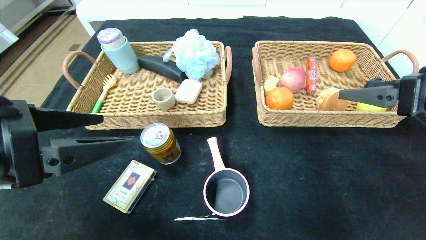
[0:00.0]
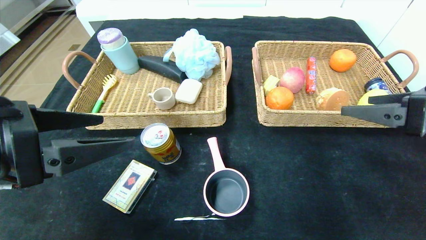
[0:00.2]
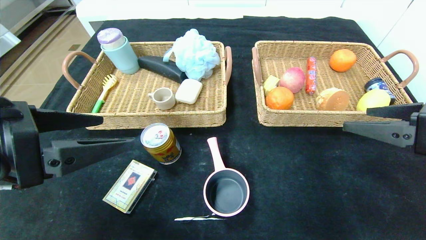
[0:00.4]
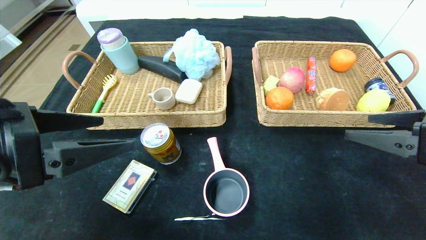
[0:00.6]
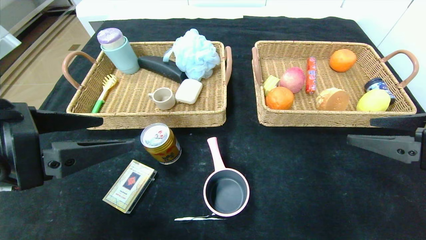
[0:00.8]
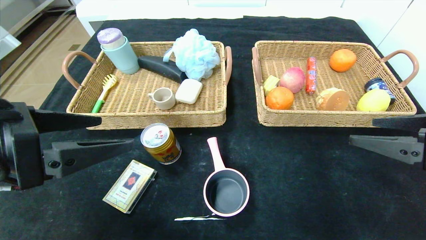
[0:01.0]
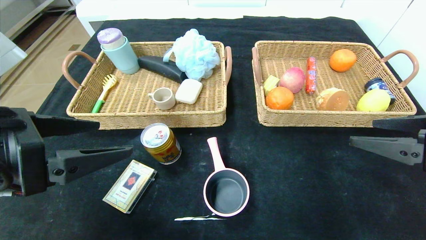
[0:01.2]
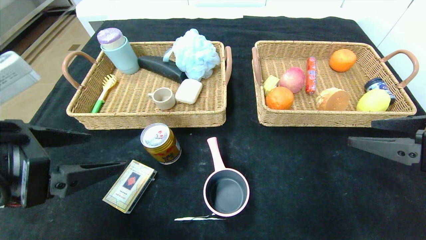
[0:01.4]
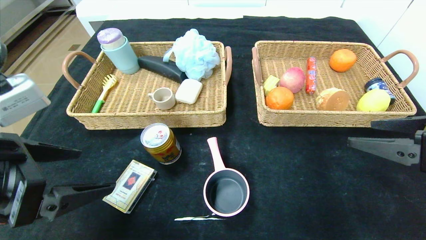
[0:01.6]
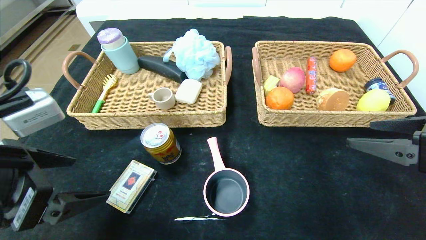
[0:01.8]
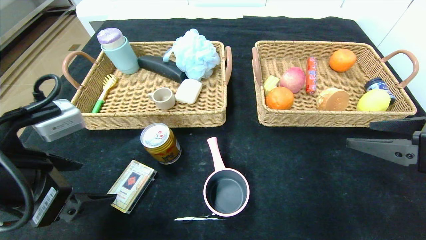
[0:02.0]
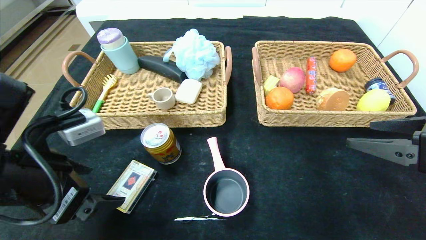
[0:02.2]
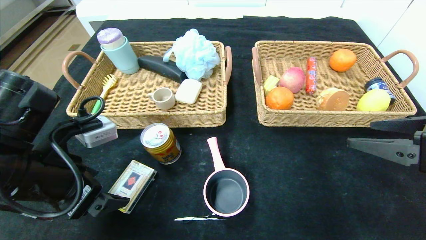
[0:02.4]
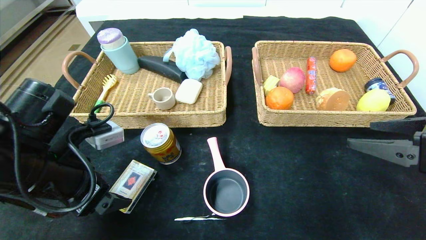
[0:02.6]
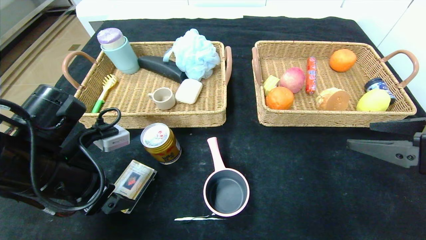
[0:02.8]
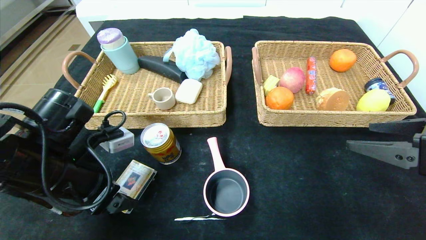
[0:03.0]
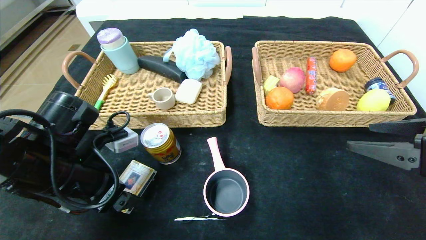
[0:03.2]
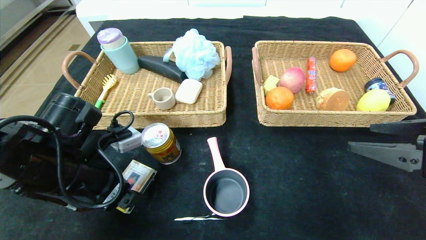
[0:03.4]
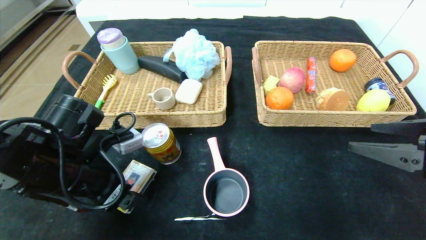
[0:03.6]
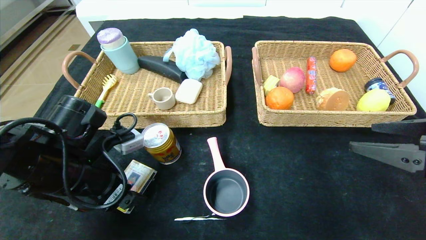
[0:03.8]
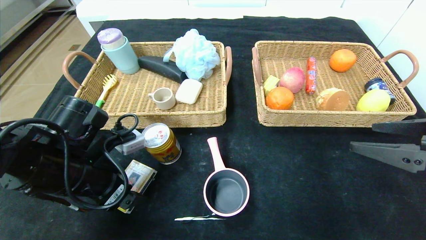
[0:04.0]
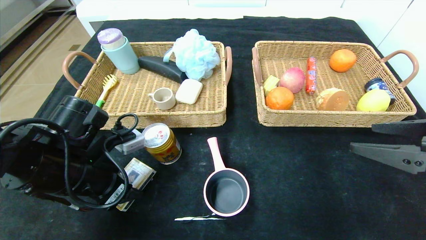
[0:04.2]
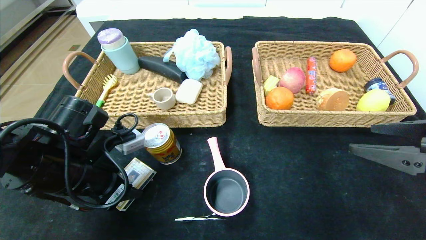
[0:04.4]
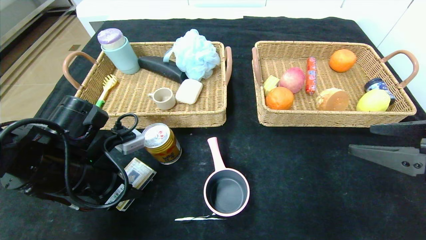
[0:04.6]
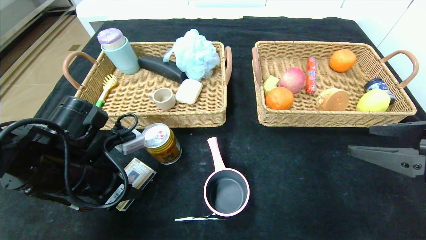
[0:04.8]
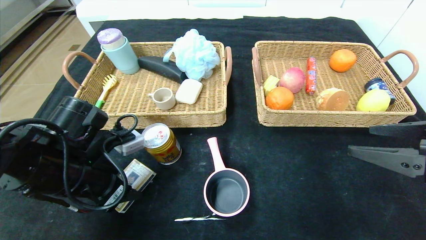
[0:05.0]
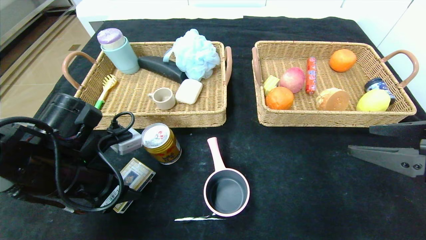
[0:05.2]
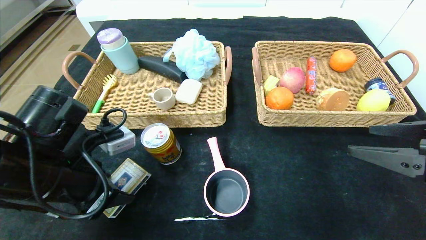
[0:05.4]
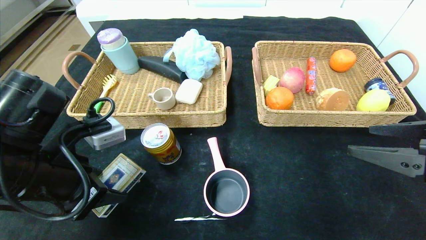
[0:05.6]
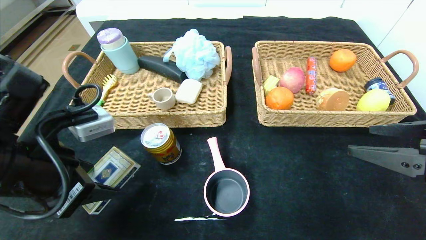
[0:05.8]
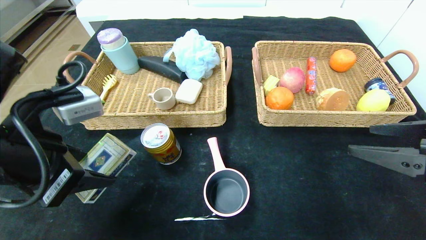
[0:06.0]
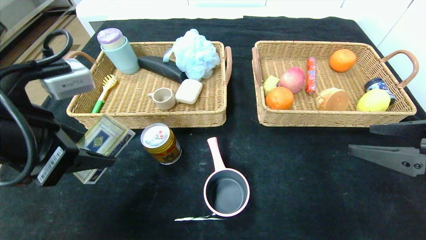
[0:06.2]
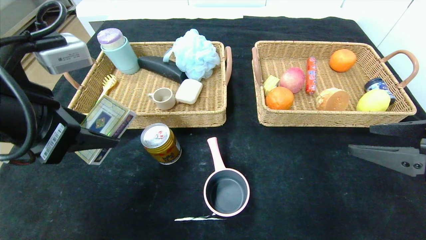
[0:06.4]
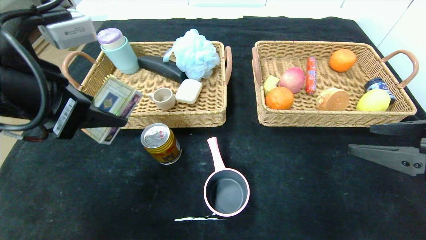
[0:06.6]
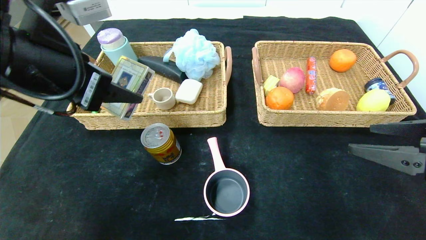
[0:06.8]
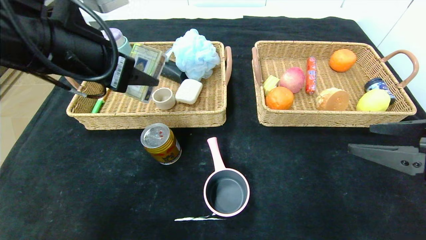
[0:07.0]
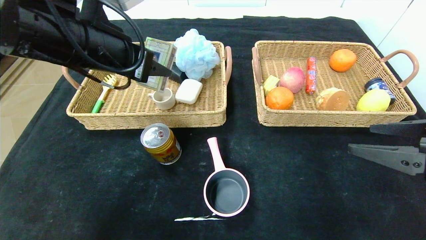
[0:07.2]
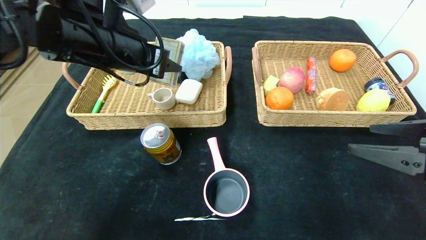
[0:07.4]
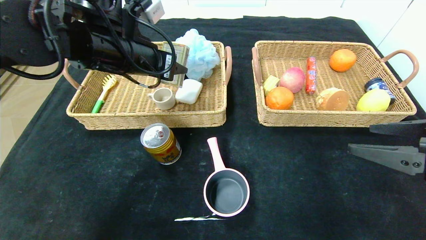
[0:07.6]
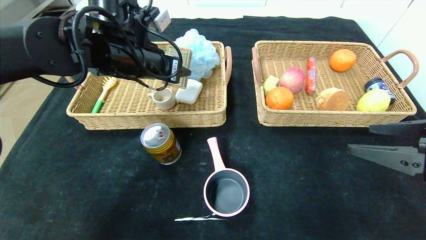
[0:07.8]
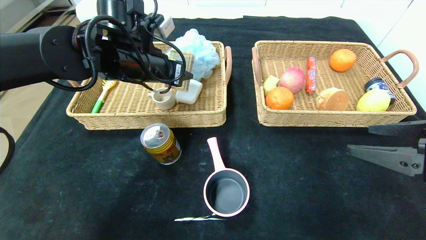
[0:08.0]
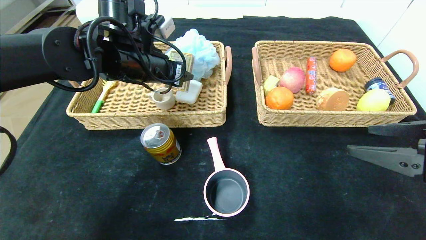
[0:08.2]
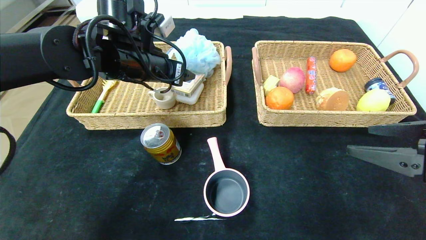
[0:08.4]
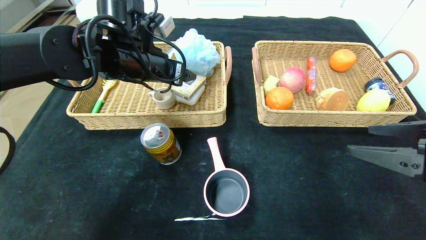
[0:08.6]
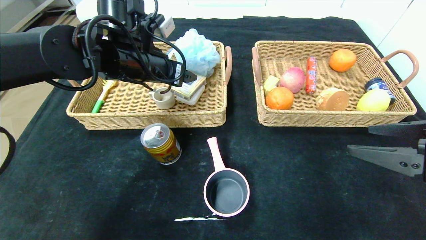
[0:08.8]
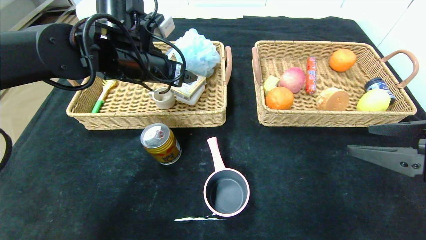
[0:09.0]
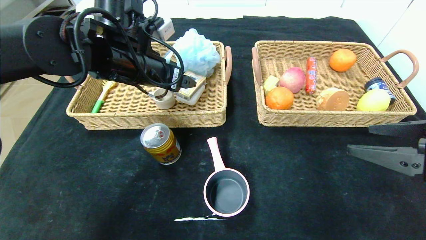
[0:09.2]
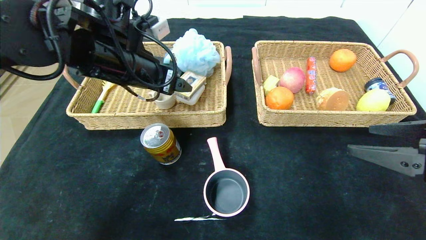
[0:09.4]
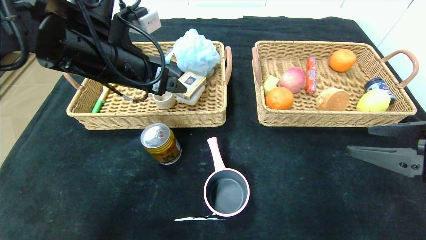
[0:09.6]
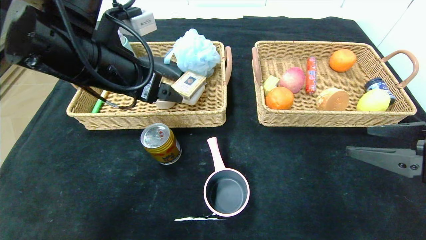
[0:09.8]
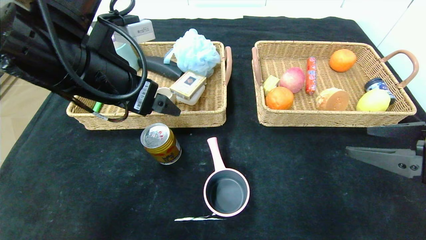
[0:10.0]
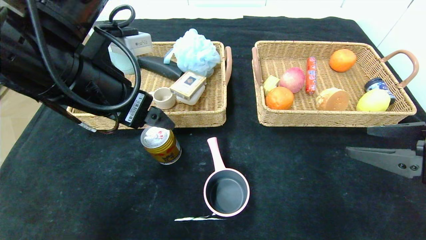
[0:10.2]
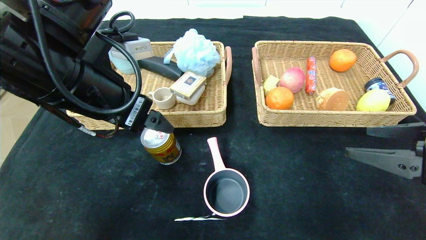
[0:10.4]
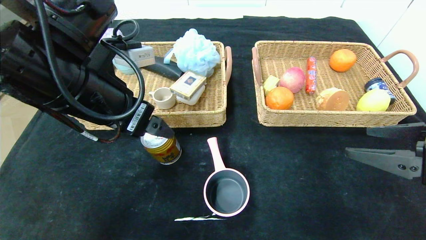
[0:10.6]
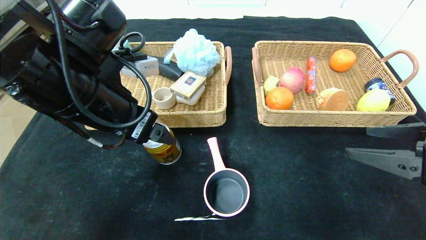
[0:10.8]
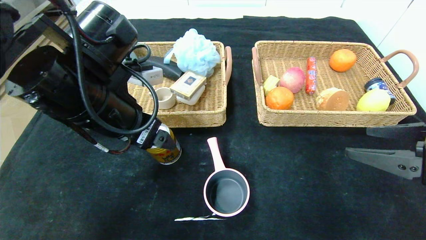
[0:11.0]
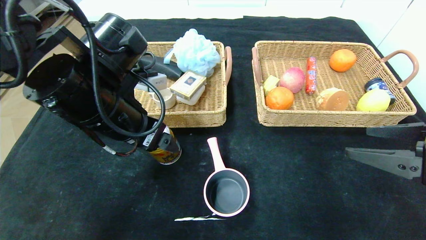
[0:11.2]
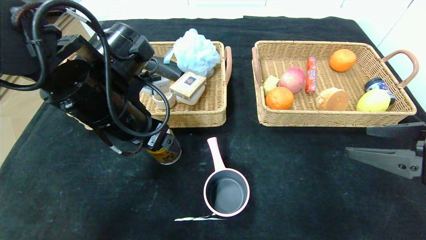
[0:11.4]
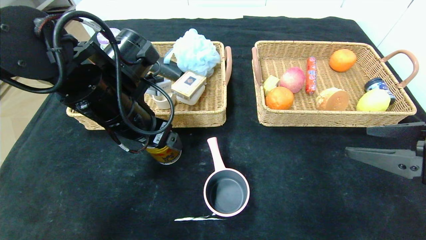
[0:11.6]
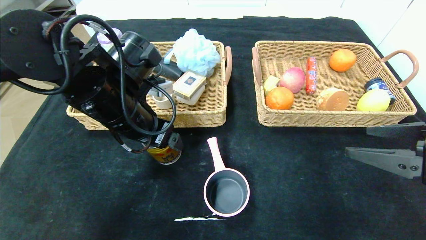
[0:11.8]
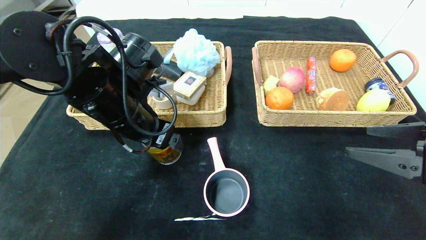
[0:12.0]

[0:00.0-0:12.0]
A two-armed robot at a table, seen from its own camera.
Step, 0:00.0 to 0:08.6: Grasp the playing cards and put it in the left basket.
0:00.0 to 0:01.6: The right gripper moves about 5 cm.
0:01.6 to 0:03.0: The left gripper heads forward and downward, covering about 10 cm.
0:03.0 to 0:04.4: The left gripper closes its fingers.
0:04.4 to 0:06.0: The left gripper shifts roughly 10 cm upward and backward.
0:06.0 to 0:07.6: The left gripper moves forward and to the right, about 20 cm.
0:07.6 to 0:09.0: The left gripper opens up.
0:09.0 to 0:10.4: The left gripper goes some 15 cm backward.
0:10.4 to 0:12.0: The left gripper moves downward and forward, about 10 cm.

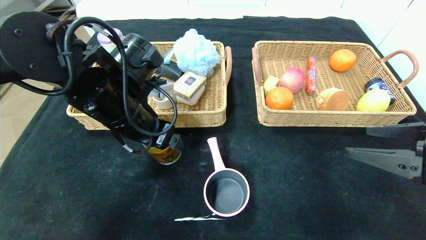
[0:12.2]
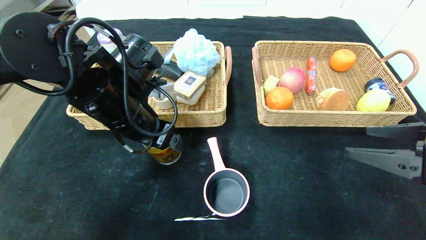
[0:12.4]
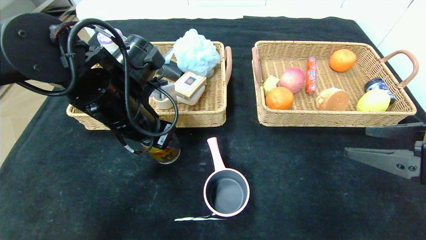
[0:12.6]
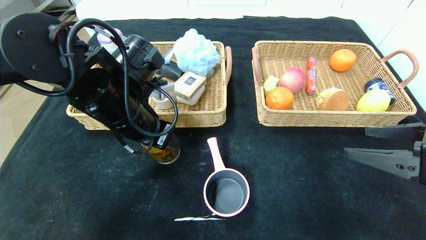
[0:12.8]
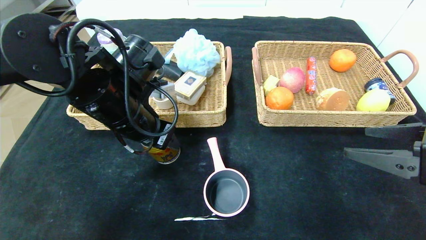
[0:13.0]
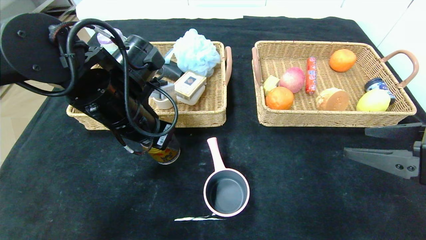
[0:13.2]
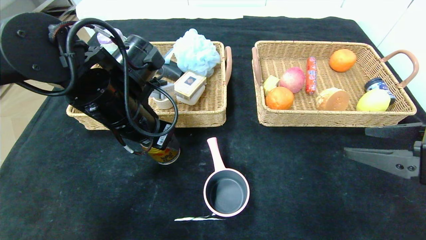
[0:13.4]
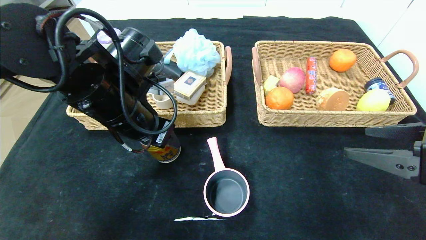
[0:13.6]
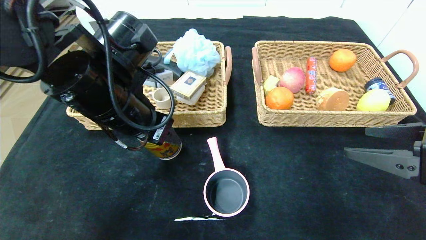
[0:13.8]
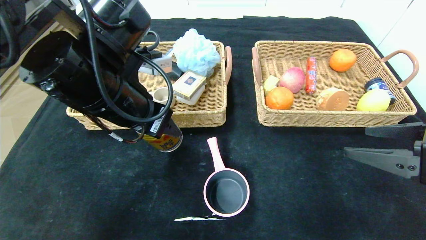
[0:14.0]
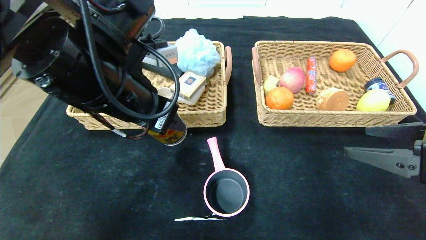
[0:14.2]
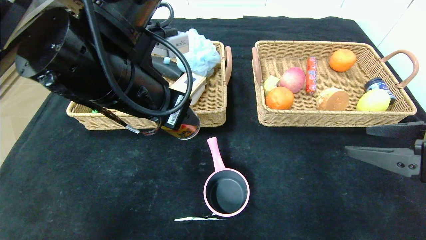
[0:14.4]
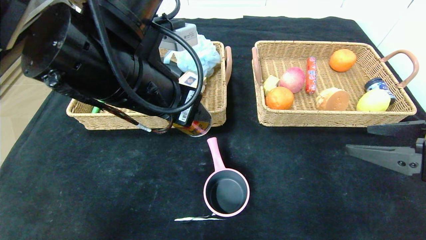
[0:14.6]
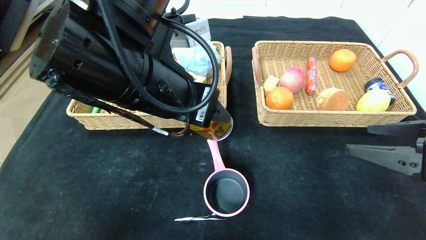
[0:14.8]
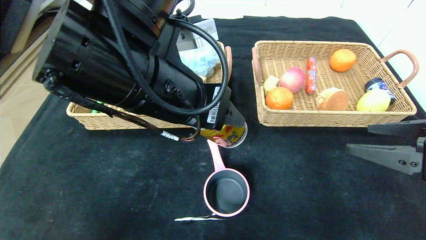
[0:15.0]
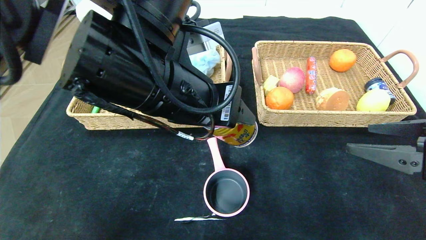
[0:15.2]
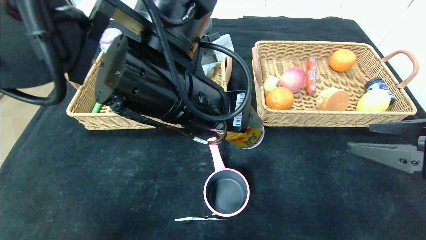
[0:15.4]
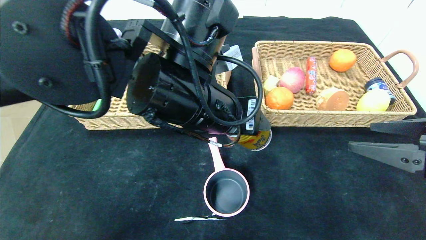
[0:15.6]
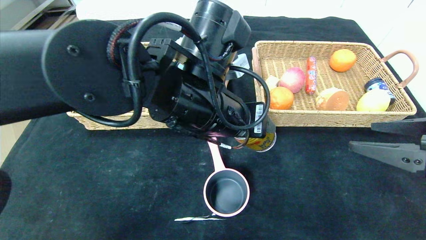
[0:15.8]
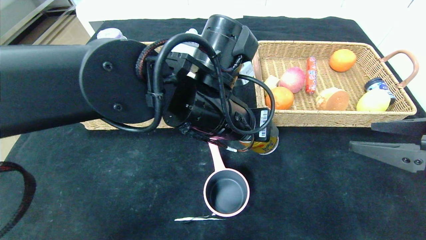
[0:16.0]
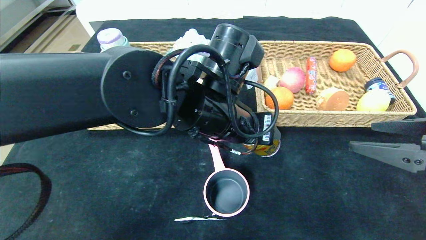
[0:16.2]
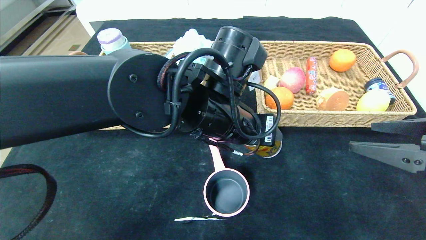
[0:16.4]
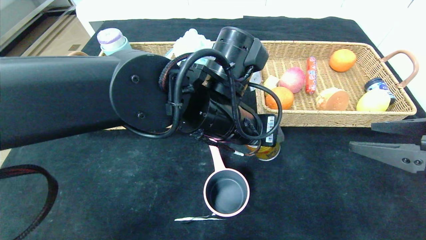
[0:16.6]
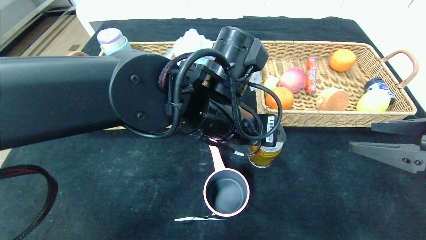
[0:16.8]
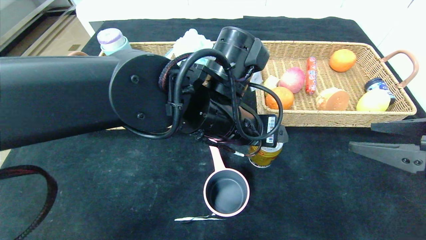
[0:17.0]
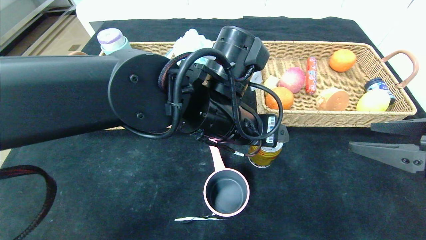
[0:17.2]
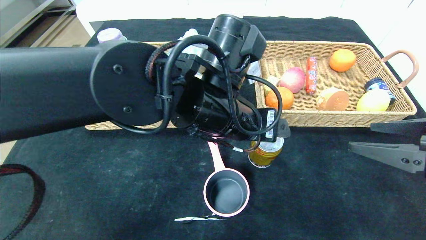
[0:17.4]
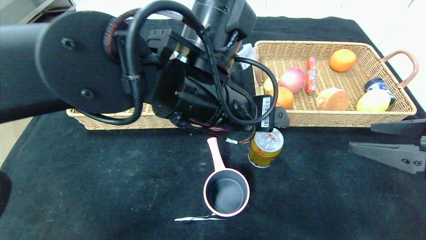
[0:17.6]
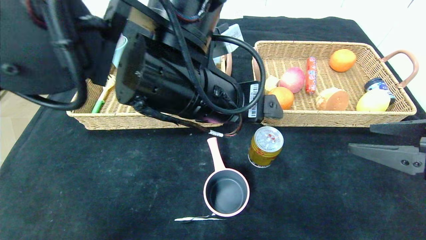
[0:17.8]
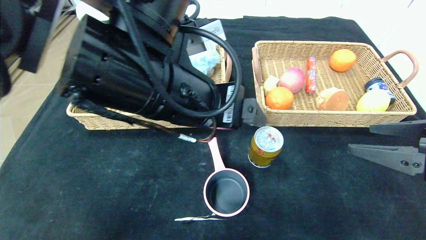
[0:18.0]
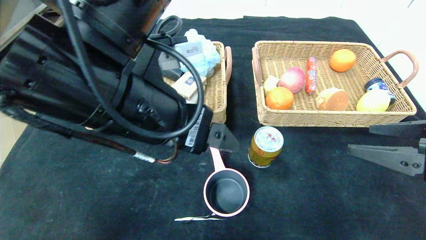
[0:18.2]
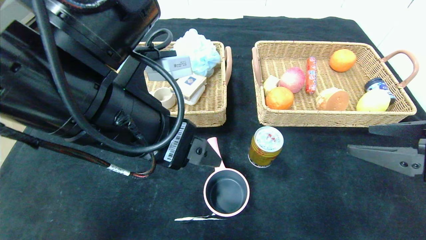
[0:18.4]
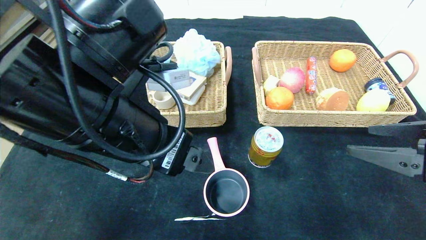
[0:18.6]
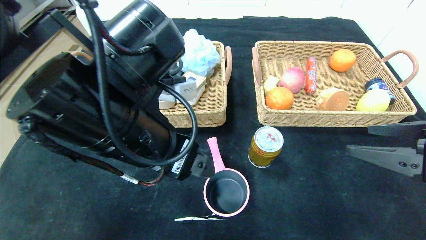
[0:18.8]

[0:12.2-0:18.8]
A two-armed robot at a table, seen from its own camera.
Step, 0:12.2 to 0:16.8: Place the Red Bull in the center of the table.
0:12.2 to 0:13.8: The left gripper closes up.
0:13.8 to 0:15.4: The left gripper moves to the right, roughly 10 cm.
0:15.4 to 0:17.2: The left gripper moves to the right, roughly 5 cm.
0:17.2 to 0:18.8: The left gripper travels to the left and backward by some 10 cm.
